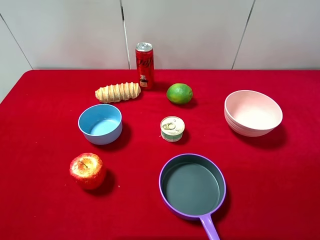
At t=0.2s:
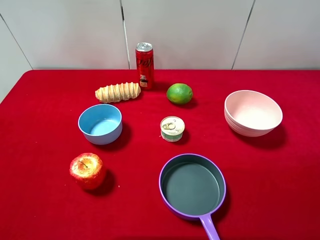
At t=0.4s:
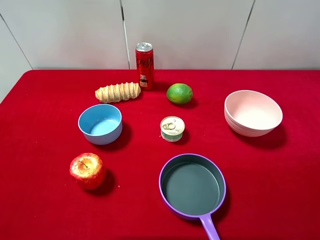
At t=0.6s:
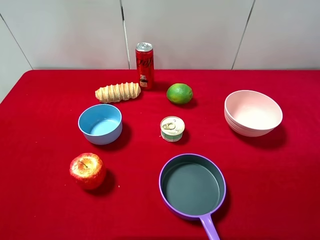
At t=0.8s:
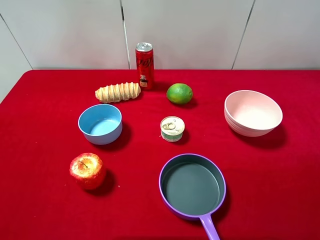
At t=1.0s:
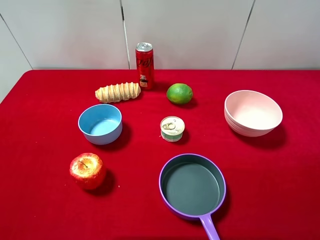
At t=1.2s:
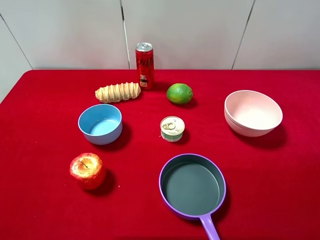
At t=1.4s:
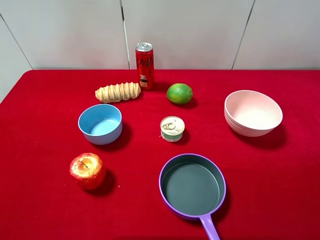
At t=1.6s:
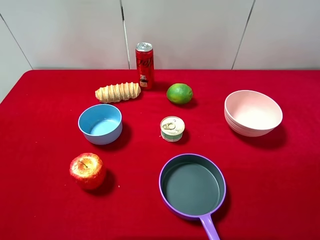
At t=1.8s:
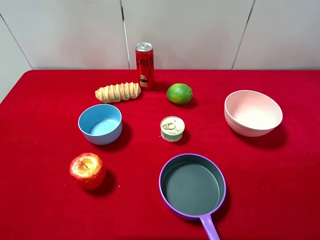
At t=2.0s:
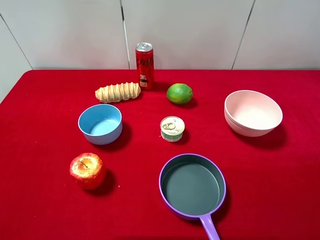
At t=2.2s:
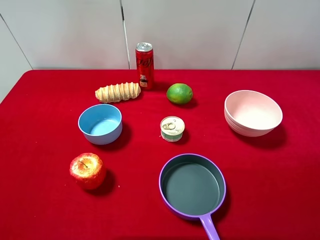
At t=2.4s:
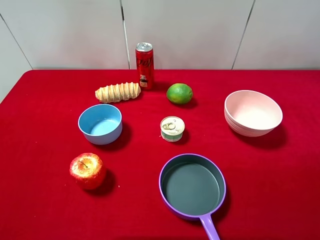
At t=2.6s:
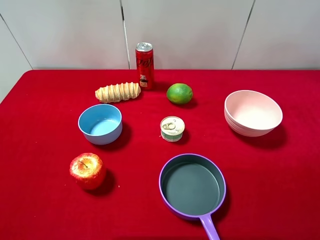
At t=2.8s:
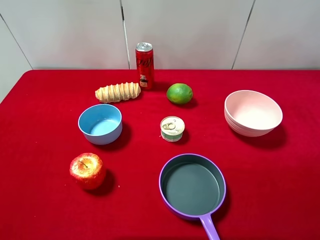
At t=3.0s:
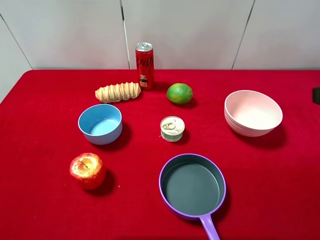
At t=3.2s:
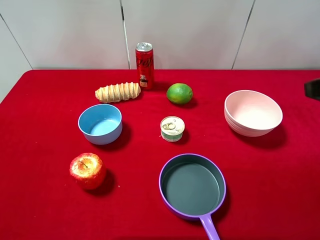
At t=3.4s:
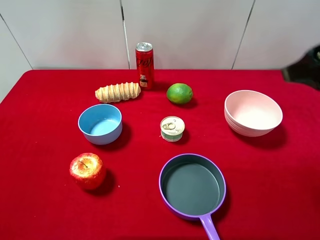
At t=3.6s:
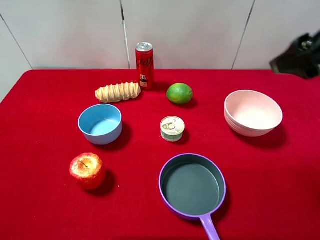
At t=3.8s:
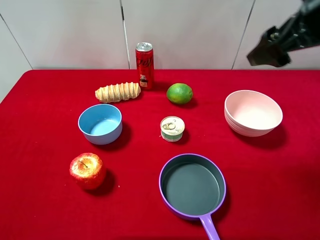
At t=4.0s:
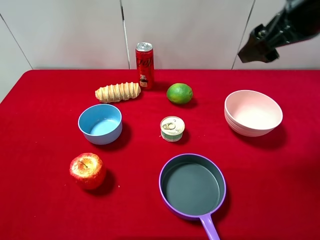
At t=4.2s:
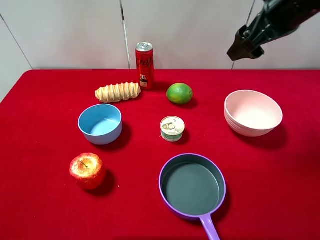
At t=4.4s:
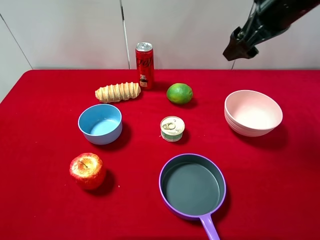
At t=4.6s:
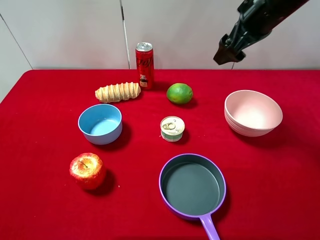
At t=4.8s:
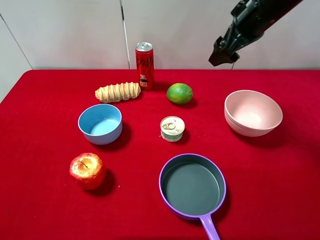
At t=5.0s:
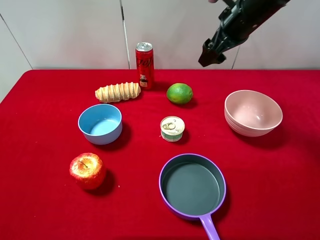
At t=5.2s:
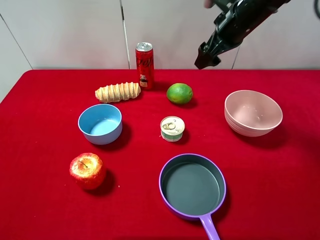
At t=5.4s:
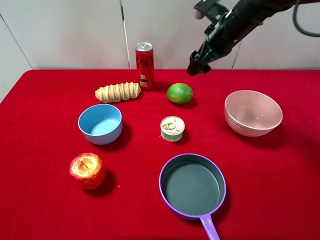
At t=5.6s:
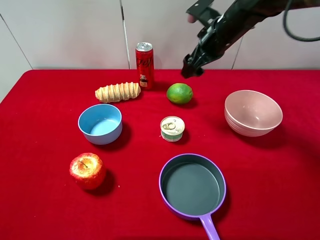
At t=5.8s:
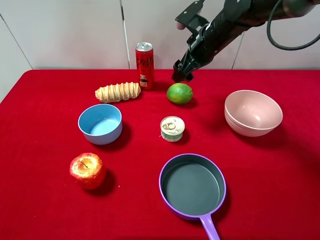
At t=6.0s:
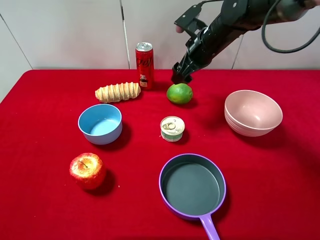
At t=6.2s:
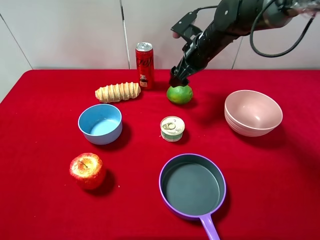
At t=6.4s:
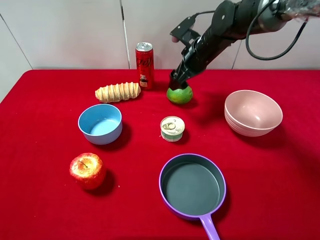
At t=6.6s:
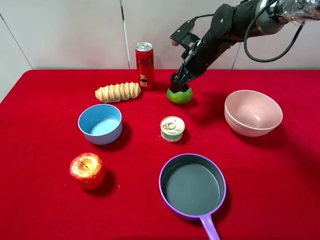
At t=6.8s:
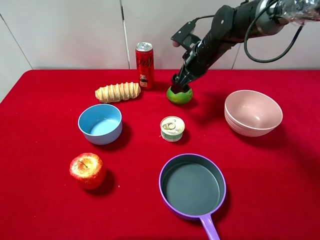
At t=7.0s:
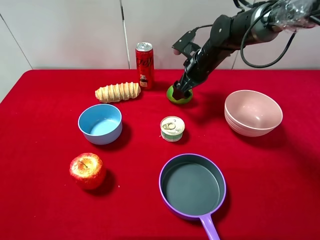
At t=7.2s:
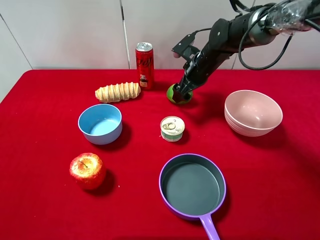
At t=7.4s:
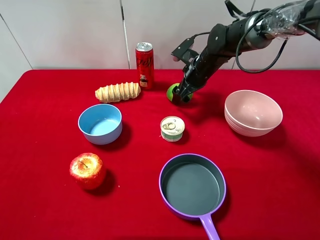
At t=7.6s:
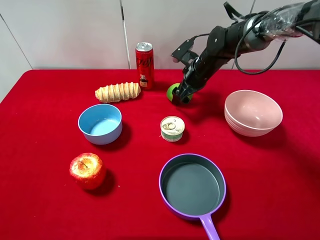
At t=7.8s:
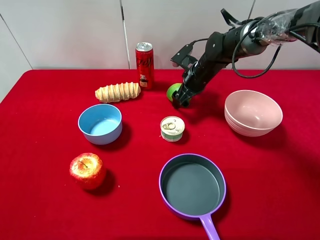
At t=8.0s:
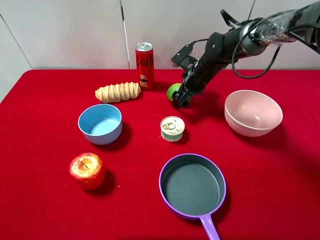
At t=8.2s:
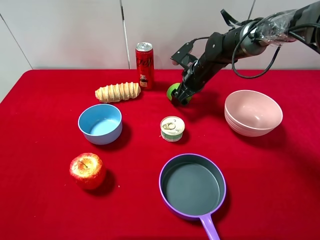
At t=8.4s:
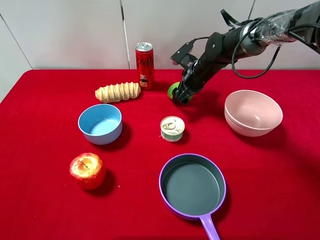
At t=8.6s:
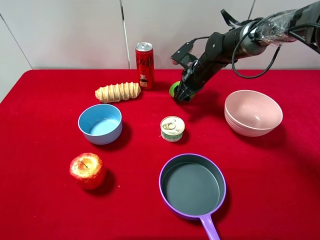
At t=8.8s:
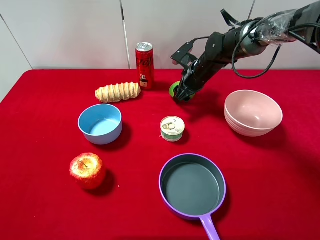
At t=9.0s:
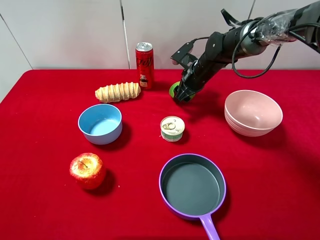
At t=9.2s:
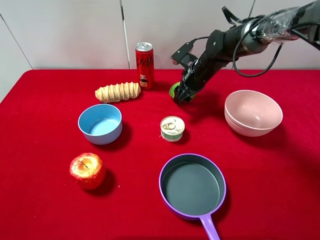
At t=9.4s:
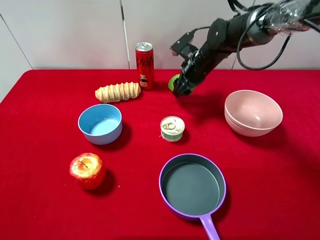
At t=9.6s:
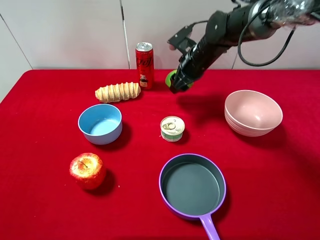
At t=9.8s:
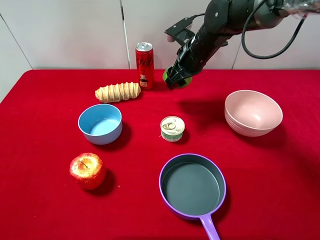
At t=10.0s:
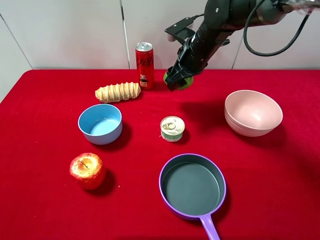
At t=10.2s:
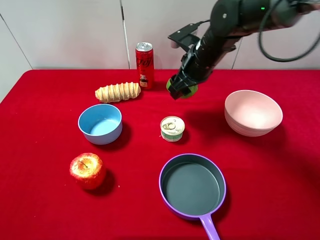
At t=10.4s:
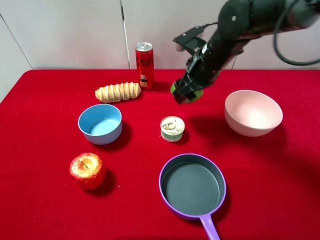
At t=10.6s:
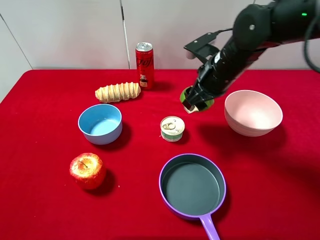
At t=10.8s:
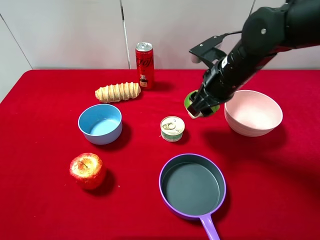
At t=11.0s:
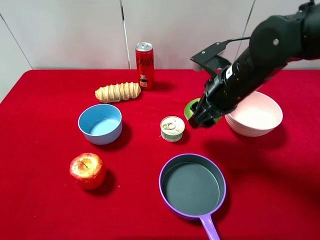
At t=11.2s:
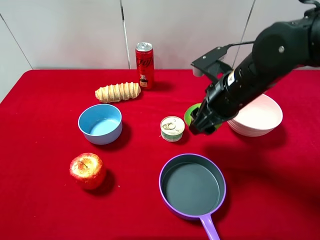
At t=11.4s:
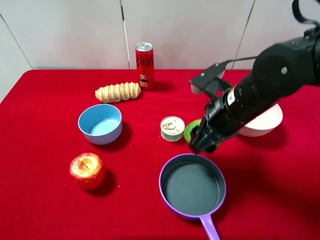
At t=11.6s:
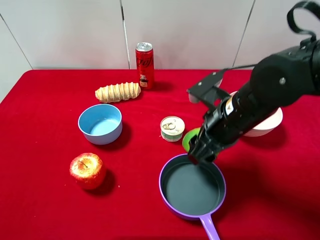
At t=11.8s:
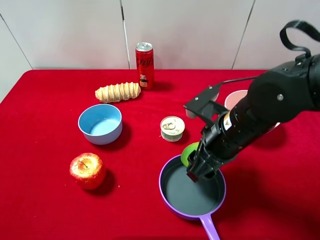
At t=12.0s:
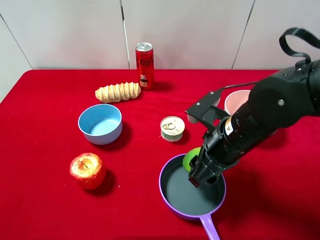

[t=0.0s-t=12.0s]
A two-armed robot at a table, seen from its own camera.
Task of the whole recording: pick up an item with a gripper and place it in a random container on the desktop.
t=0.0s to t=1.6s: Neither gripper changes place.
t=3.0s to t=4.4s: The right gripper is displaced forward and to the left by approximately 20 cm.
t=4.4s to t=6.0s: The right gripper shifts about 15 cm downward, forward and to the left.
t=6.0s to t=7.6s: The right gripper moves downward, some 10 cm.
t=7.6s to t=9.0s: The right gripper closes.
t=9.0s to t=10.4s: The right gripper goes some 15 cm backward and upward.
t=10.4s to t=12.0s: The right gripper travels backward by approximately 15 cm.

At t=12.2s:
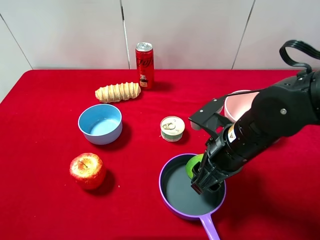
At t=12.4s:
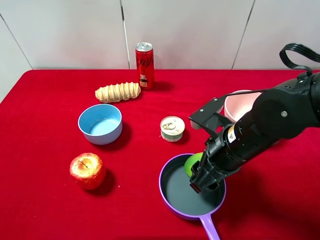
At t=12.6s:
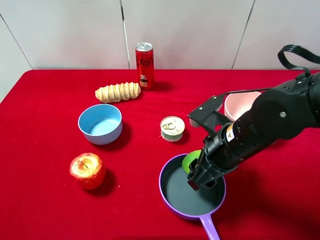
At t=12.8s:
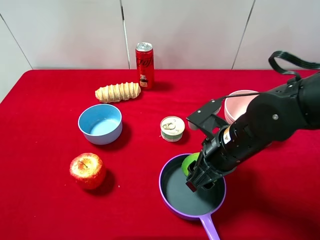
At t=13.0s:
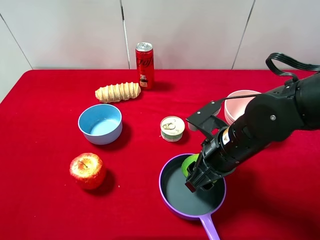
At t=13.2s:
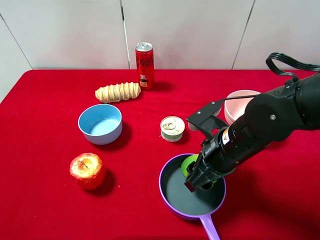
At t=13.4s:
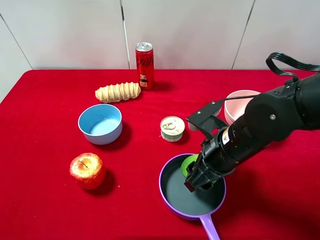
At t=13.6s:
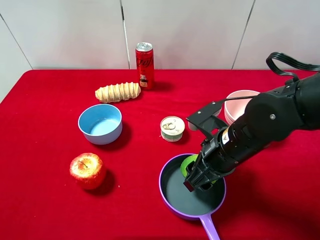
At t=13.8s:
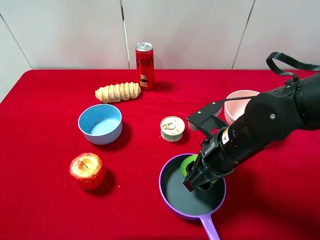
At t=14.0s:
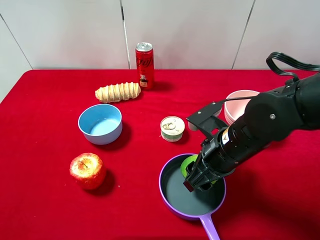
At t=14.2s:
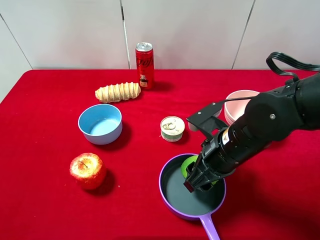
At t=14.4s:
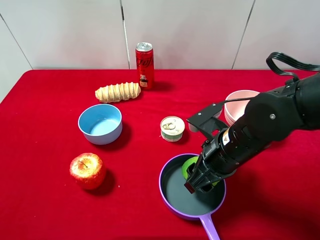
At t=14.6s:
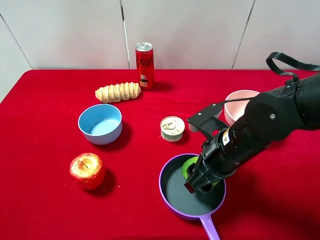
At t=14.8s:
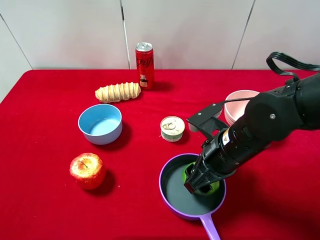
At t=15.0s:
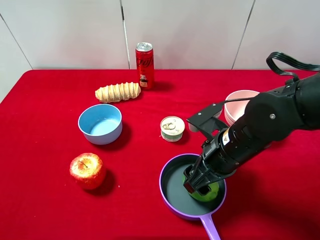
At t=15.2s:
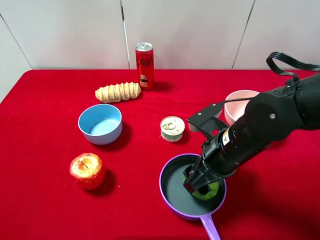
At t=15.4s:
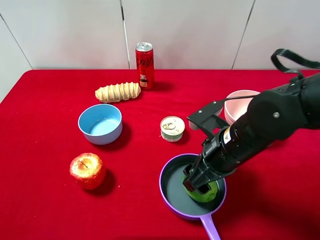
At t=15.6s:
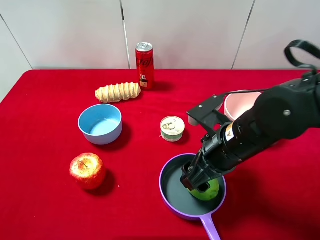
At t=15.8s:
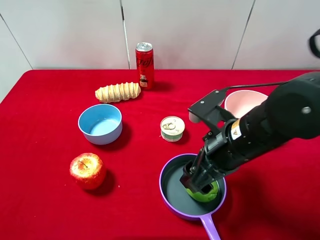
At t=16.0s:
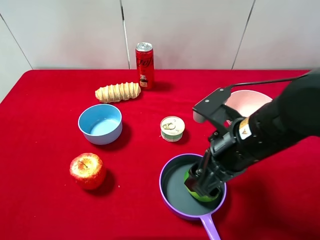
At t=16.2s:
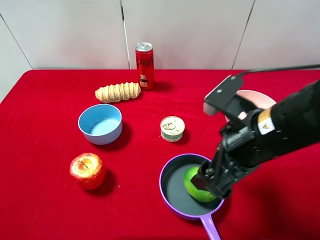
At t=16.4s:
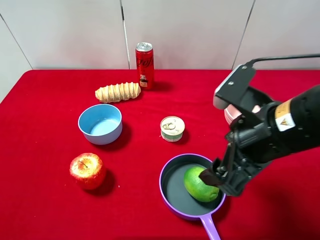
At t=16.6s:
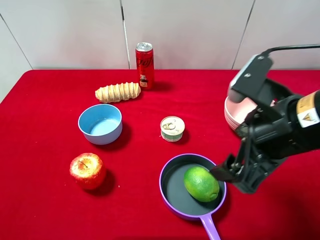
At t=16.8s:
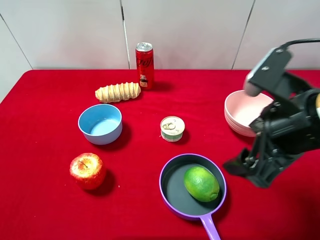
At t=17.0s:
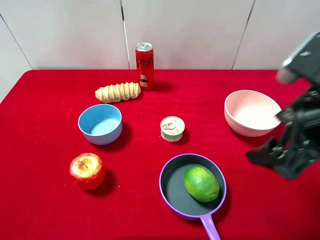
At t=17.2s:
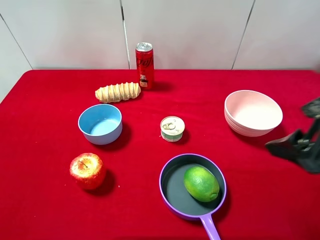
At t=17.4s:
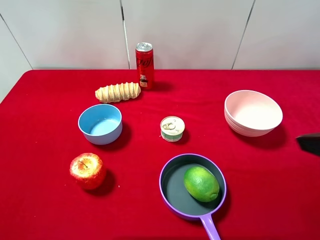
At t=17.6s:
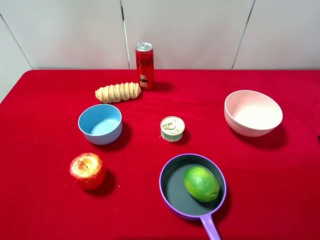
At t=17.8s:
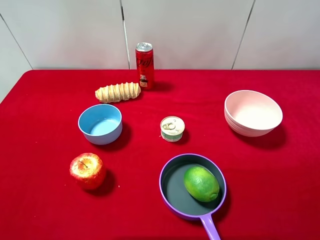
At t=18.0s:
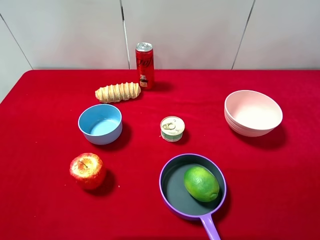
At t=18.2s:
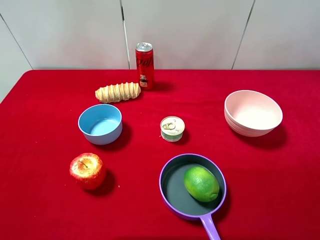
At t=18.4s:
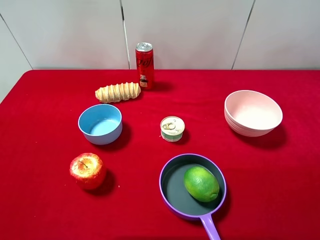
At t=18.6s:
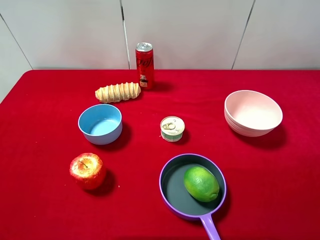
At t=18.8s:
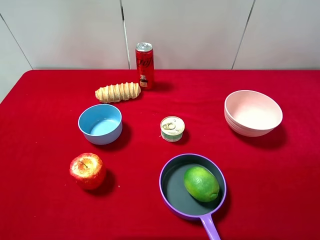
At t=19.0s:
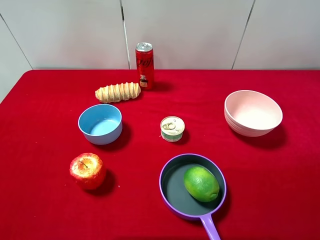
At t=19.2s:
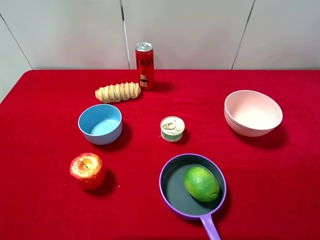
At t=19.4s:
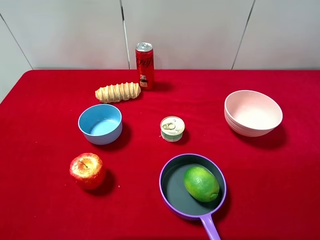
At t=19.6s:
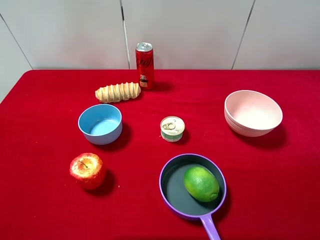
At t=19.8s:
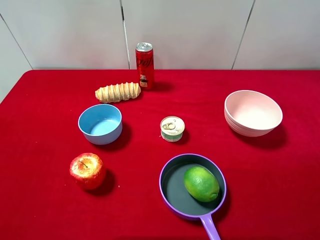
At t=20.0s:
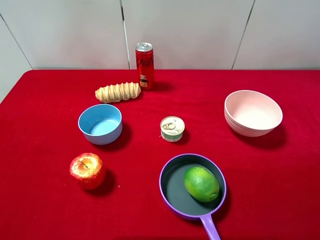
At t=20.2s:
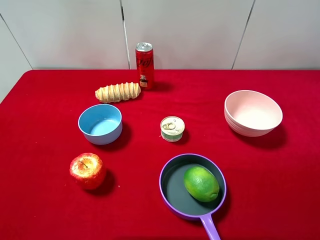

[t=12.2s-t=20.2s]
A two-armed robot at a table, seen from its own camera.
Task of the whole recording: pick up an item with a gripper and place it in a random container on the desktop.
t=12.2s to t=13.8s: The two grippers keep their place.
t=13.8s to t=15.4s: The right gripper opens.
t=15.4s to t=17.0s: The right gripper travels upward and to the right by roughly 15 cm, and opens up.
t=17.0s to t=18.6s: The right gripper is displaced backward and to the right by some 15 cm.
